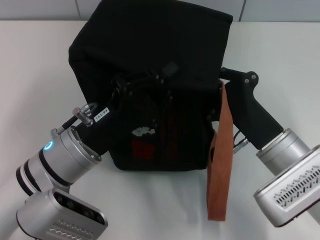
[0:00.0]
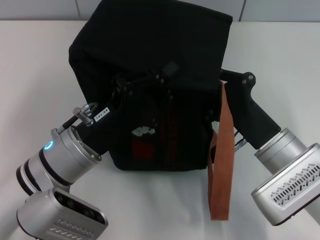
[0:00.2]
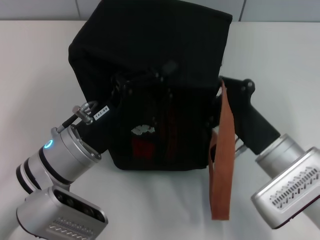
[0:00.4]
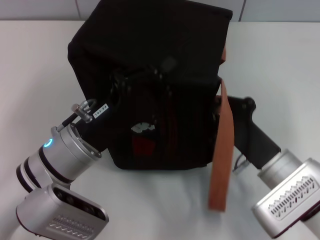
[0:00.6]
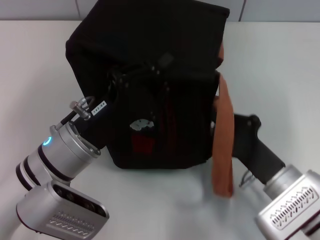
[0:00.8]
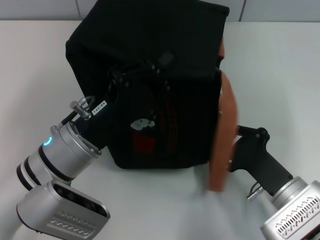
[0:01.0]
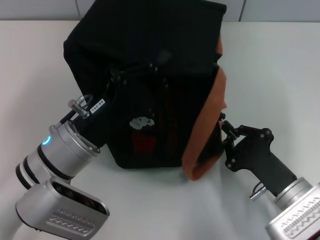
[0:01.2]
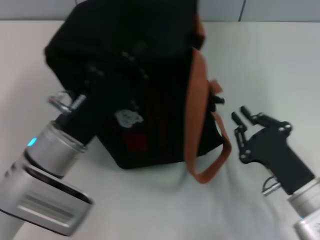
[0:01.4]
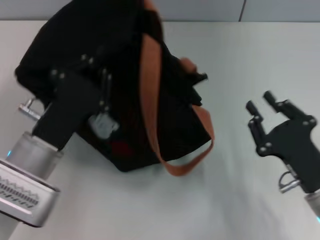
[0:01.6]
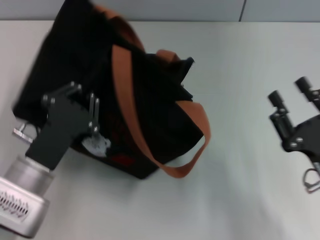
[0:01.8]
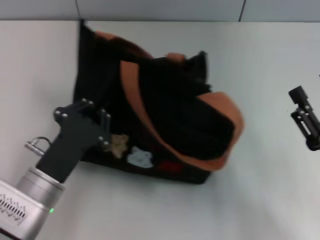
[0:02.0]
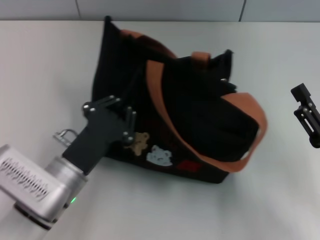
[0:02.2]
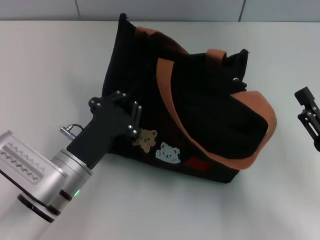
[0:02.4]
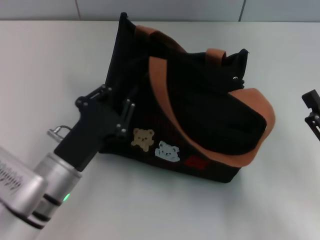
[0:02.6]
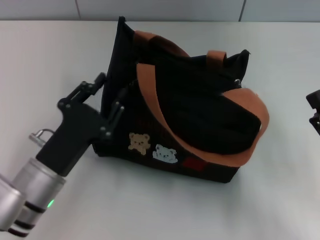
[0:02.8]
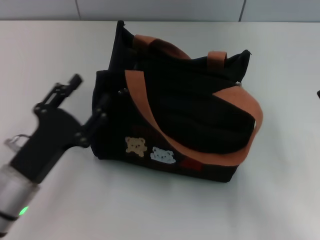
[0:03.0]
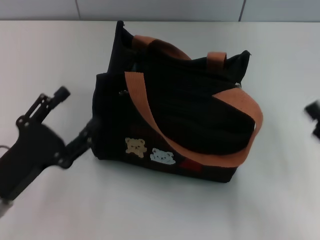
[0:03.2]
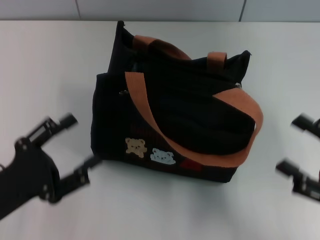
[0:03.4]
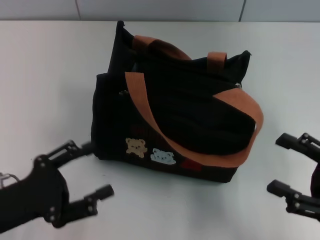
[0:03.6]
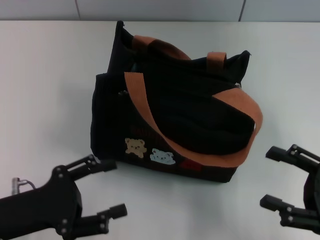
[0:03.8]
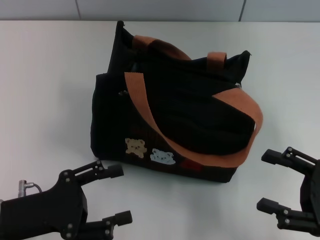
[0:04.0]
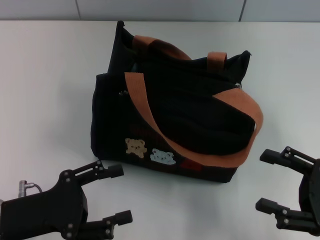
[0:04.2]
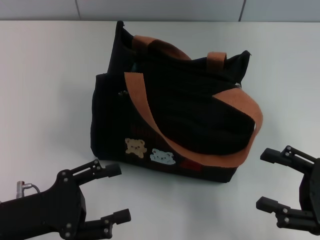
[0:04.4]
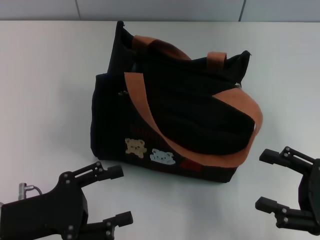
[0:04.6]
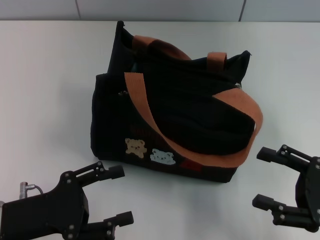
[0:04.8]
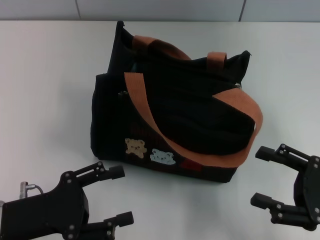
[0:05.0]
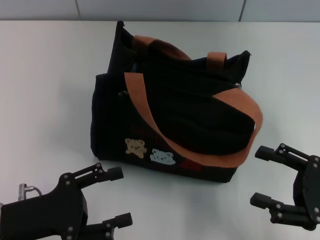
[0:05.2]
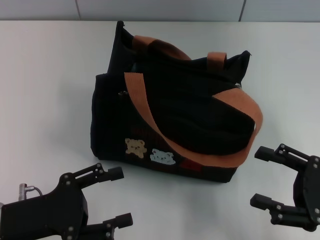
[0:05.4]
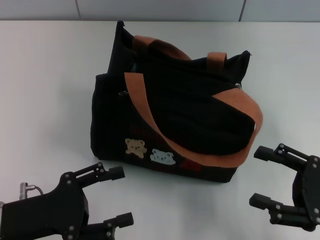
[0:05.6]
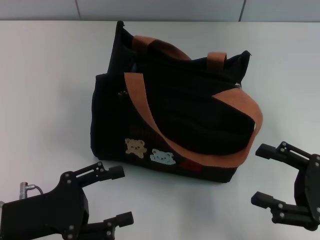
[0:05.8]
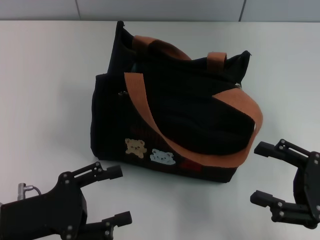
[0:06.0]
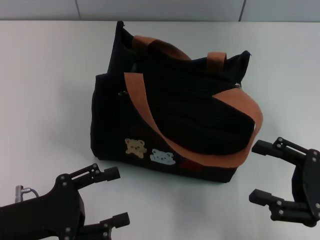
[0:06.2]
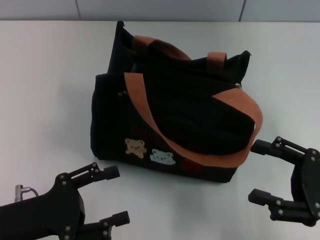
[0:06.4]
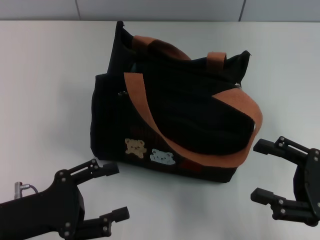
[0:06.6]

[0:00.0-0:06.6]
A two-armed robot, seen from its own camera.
Step, 0:01.6 to 0:03.0: Grab the bag with your left hand.
0:00.0 to 0:01.6: The right gripper goes about 10 cm backward and to the right.
0:01.6 to 0:03.2: The left gripper moves to the left and backward, roughly 10 cm, and opens. Meanwhile the right gripper shifts roughly 10 cm to the right, and opens its fingers.
0:05.0 to 0:06.6: Both grippers stay about where they are.

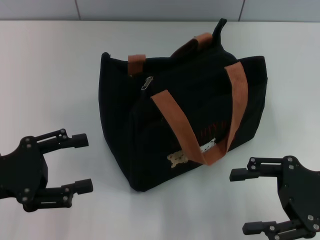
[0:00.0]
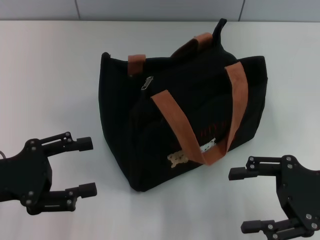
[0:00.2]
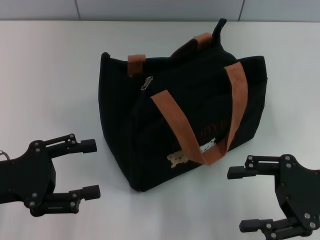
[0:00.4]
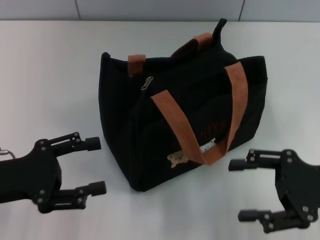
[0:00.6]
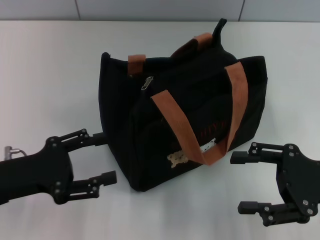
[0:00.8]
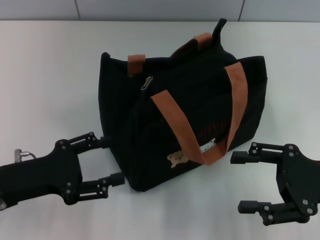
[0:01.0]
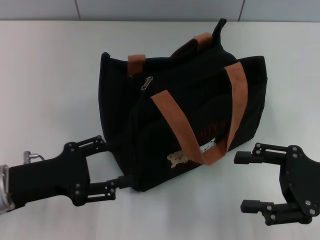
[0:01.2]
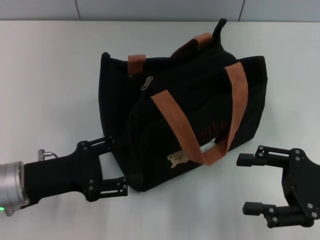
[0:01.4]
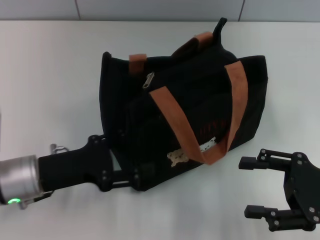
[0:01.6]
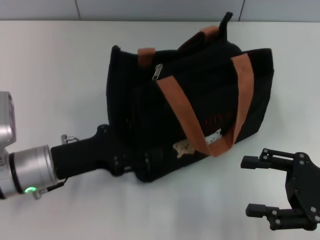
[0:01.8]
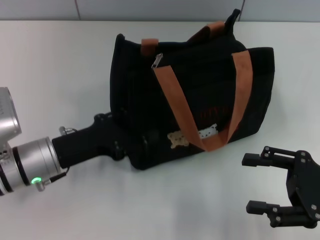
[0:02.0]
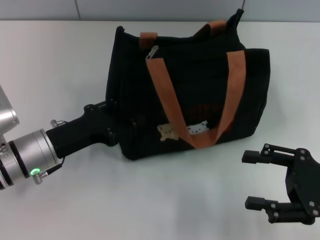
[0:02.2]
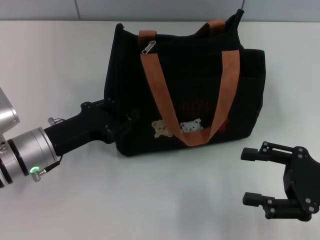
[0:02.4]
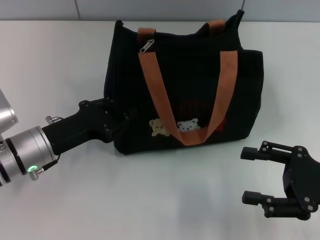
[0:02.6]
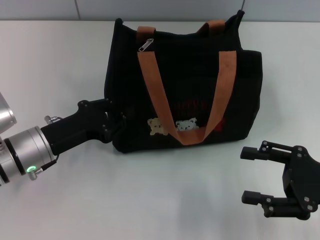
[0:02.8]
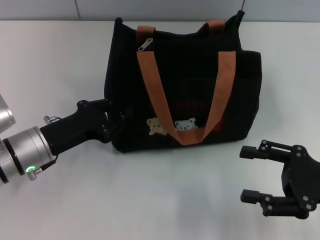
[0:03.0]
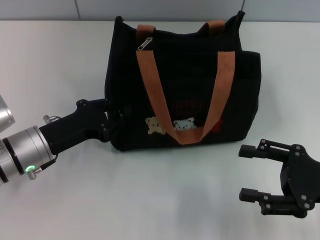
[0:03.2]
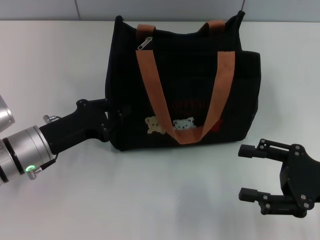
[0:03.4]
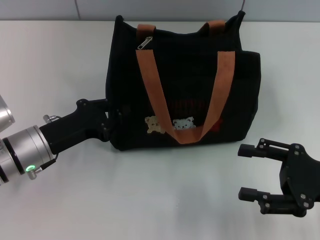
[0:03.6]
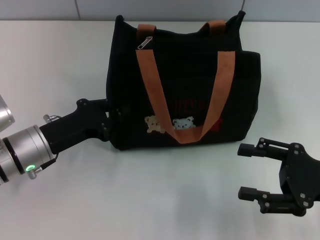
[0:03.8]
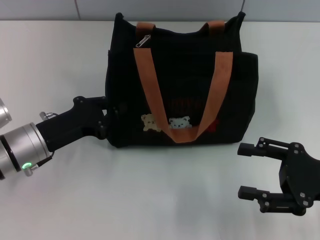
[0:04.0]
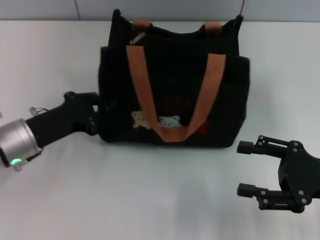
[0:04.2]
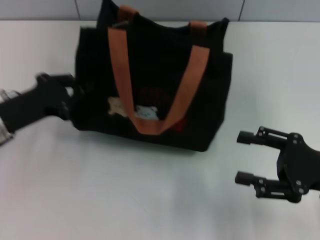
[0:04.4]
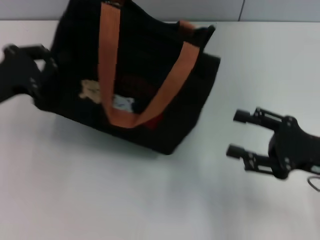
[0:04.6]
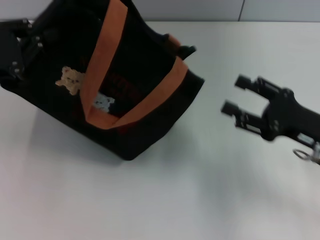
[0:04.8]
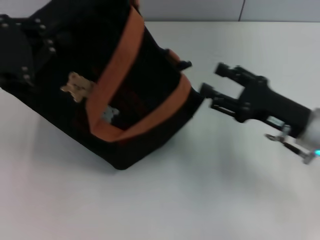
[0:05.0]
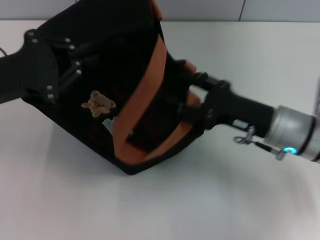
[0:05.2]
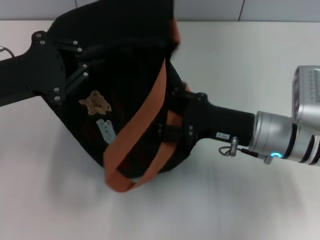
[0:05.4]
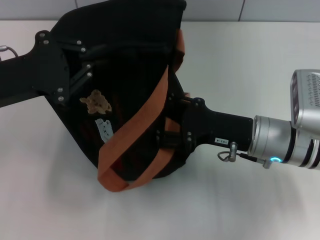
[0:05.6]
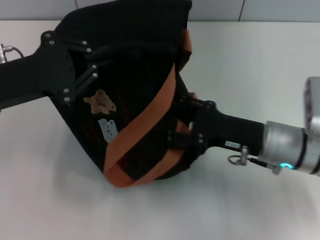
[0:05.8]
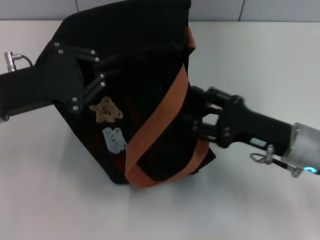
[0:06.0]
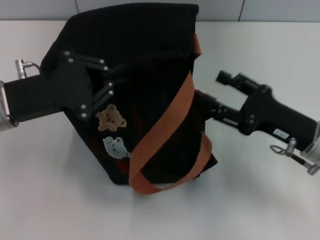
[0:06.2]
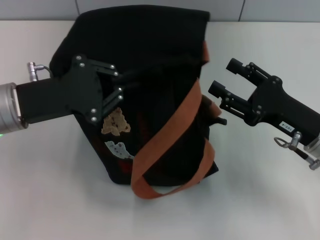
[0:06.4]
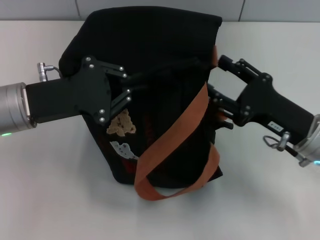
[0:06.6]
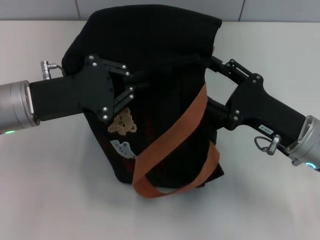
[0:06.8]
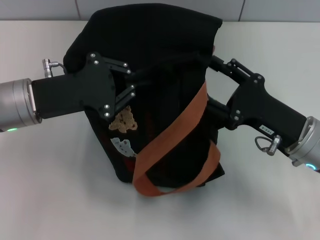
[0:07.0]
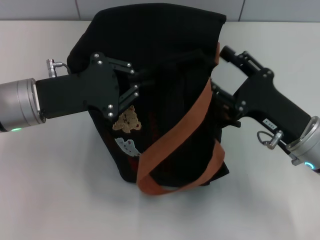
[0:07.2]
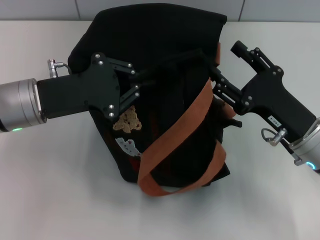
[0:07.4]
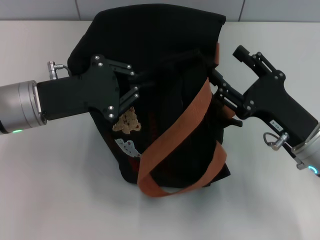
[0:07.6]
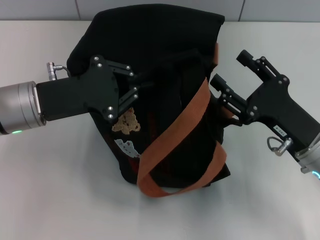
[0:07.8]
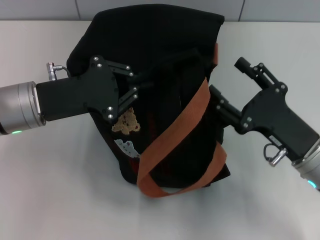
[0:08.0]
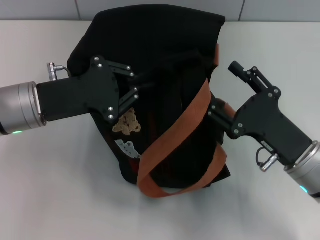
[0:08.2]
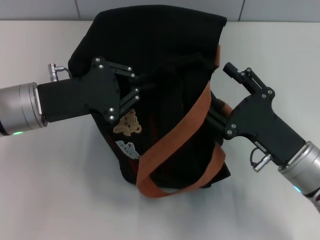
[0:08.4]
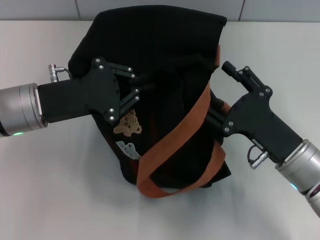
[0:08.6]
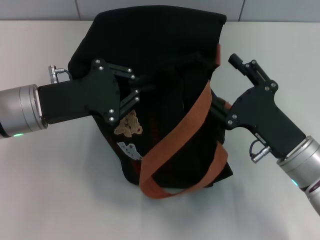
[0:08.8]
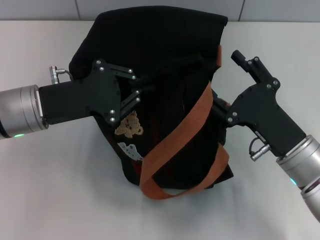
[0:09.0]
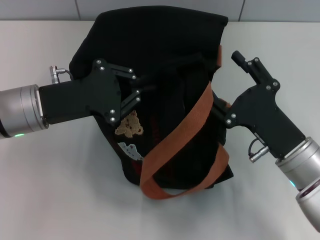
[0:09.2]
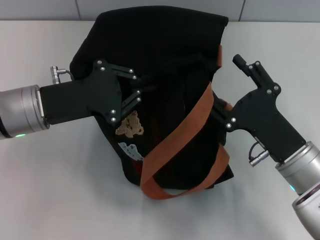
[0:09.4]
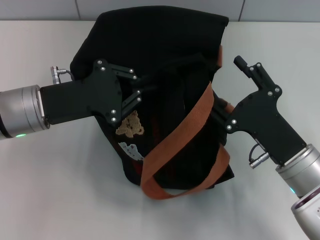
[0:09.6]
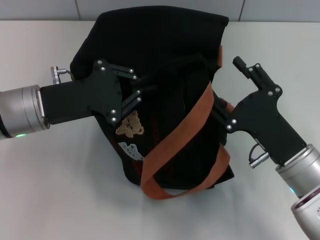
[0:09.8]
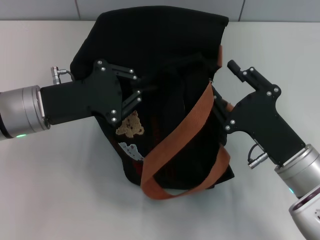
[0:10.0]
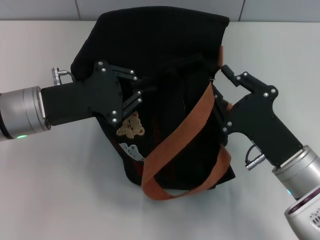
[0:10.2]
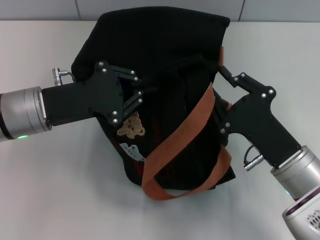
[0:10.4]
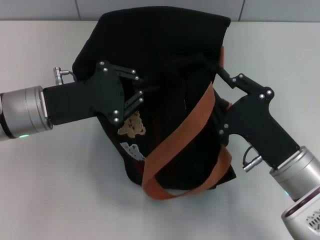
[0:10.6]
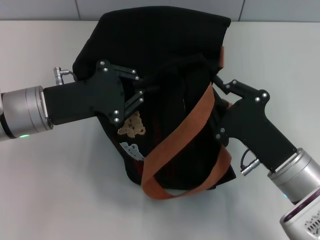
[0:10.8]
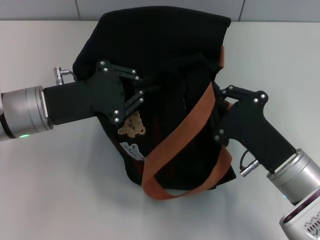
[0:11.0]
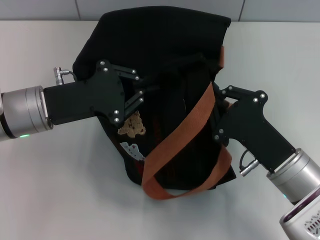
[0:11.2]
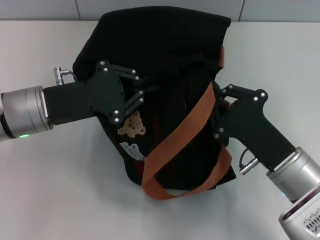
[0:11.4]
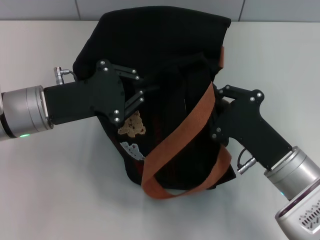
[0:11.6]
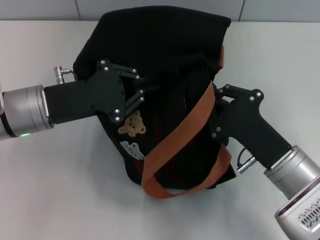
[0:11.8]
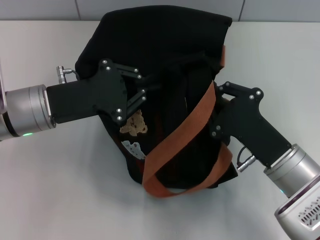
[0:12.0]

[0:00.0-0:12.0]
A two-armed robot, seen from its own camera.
0:00.0 to 0:01.6: The left gripper travels to the right by about 10 cm.
0:01.6 to 0:03.0: The left gripper closes its fingers.
0:03.0 to 0:04.4: The left gripper goes roughly 5 cm to the left.
0:04.4 to 0:06.0: The left gripper is displaced upward by about 5 cm. Meanwhile the right gripper travels to the left by about 5 cm.
0:09.0 to 0:10.4: The right gripper closes.
0:10.4 to 0:12.0: The two grippers keep their place.

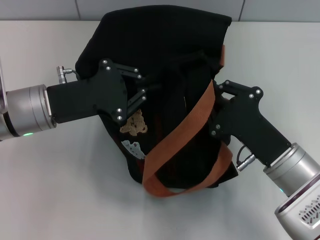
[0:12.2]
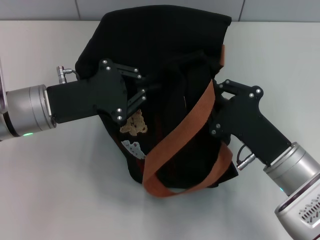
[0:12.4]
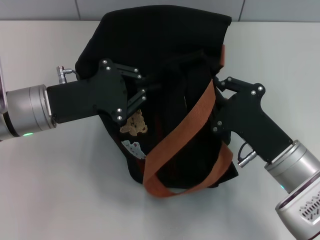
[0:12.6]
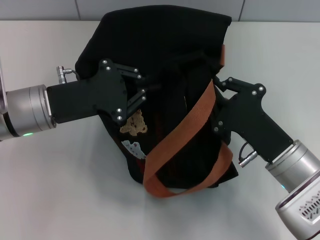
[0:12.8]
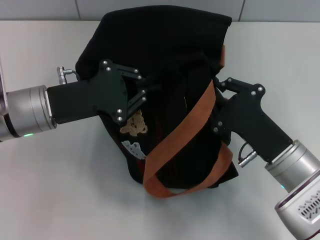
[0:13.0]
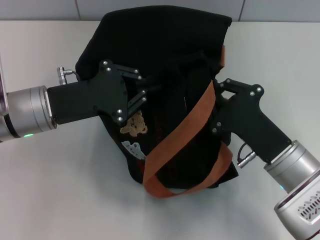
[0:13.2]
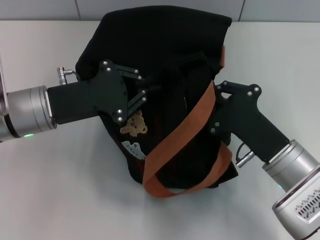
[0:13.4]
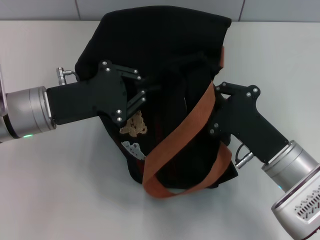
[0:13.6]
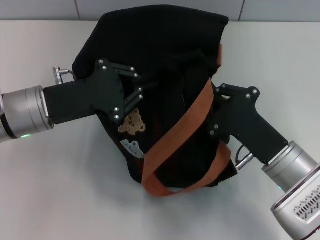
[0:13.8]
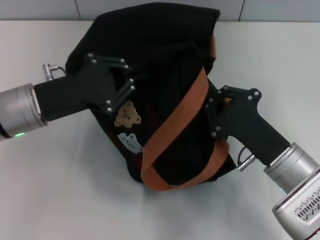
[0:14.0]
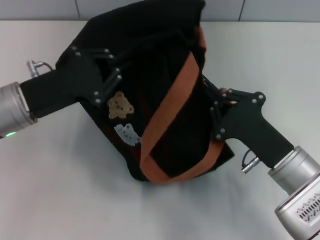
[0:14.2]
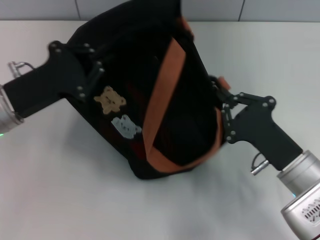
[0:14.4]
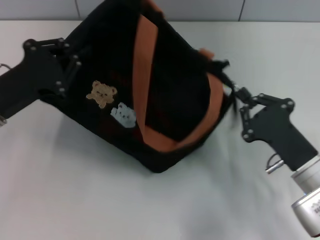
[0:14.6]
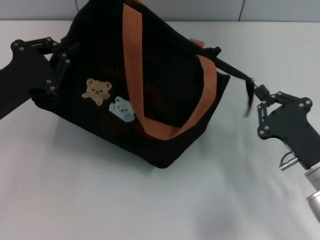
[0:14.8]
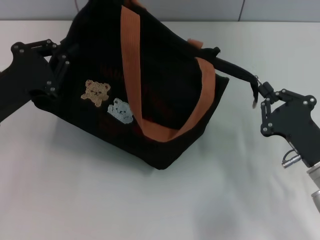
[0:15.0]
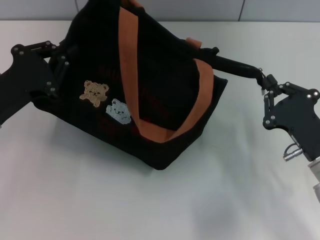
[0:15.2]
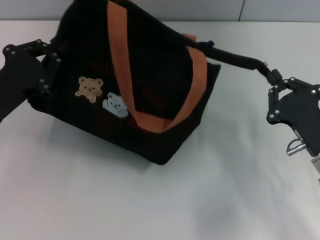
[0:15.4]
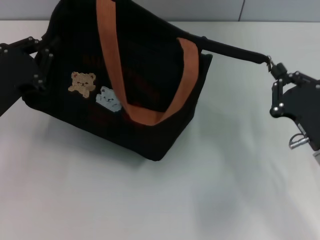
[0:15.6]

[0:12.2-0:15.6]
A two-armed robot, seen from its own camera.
0:12.2 to 0:13.8: Both grippers stay about where they are.
0:13.8 to 0:15.6: The right gripper travels to the right by some 5 cm; the left gripper heads to the left, covering some 5 cm.
